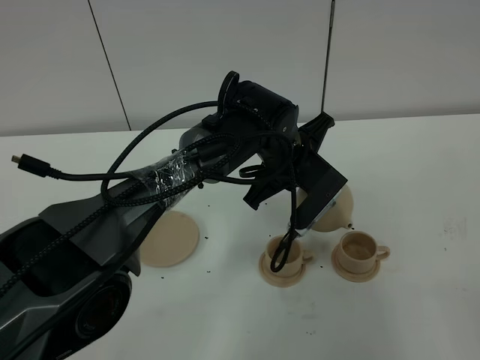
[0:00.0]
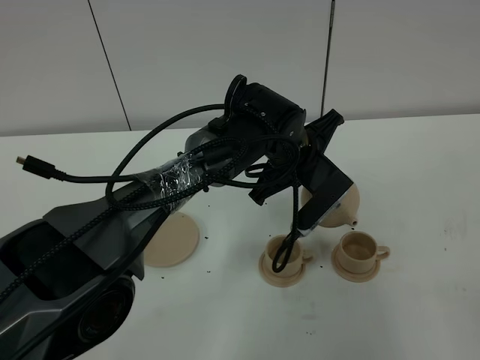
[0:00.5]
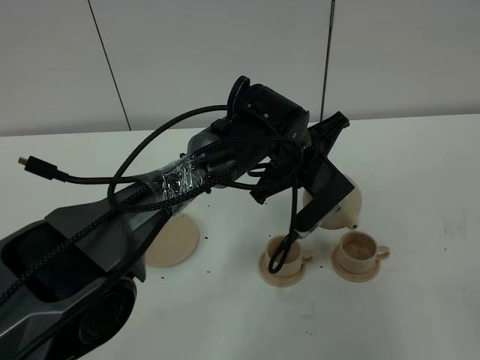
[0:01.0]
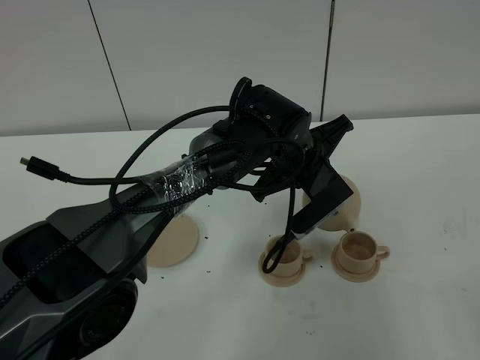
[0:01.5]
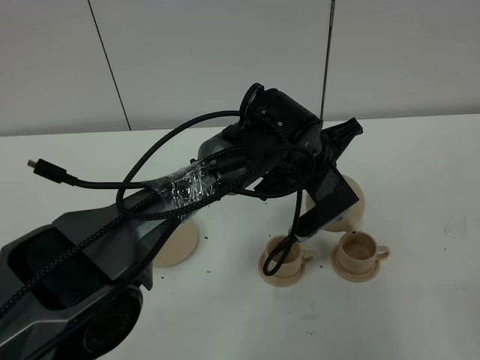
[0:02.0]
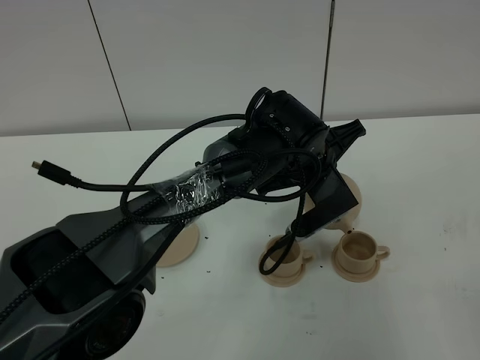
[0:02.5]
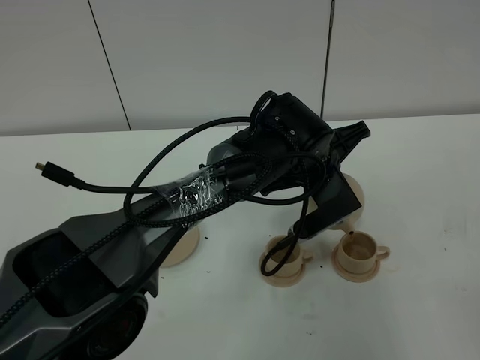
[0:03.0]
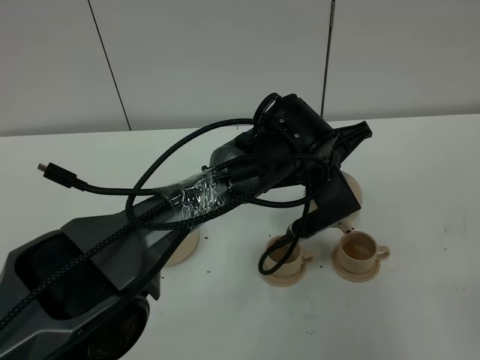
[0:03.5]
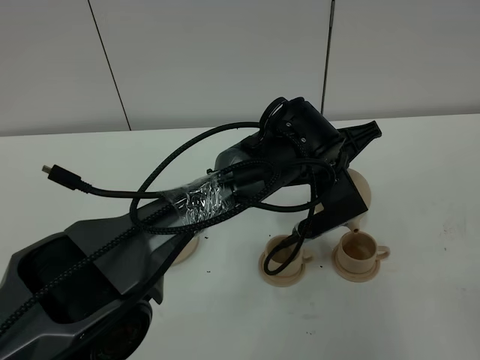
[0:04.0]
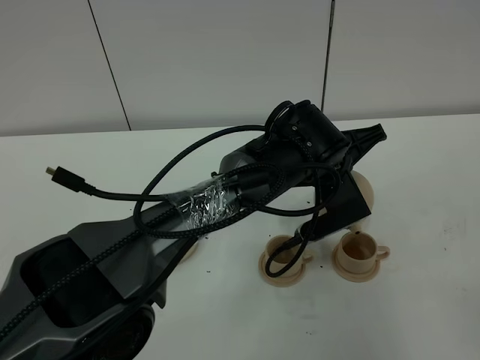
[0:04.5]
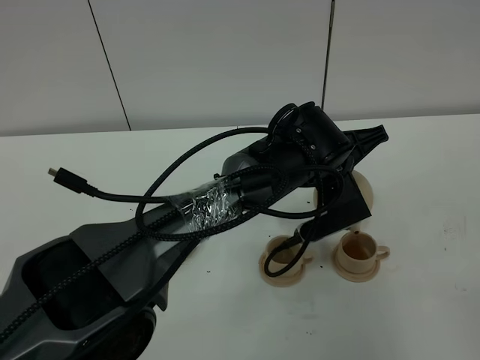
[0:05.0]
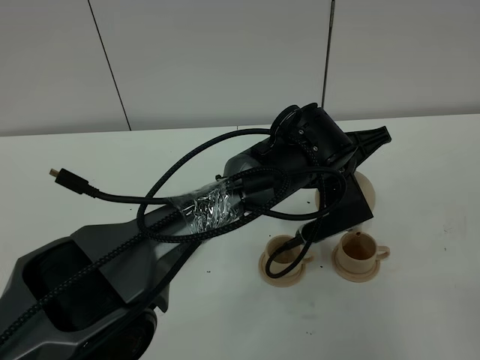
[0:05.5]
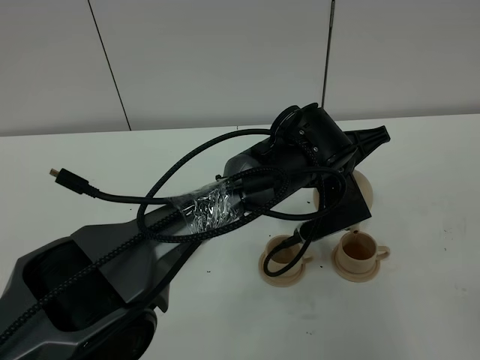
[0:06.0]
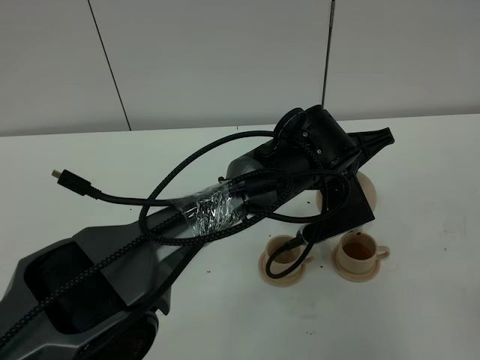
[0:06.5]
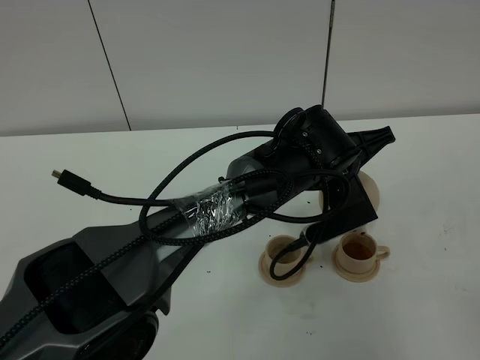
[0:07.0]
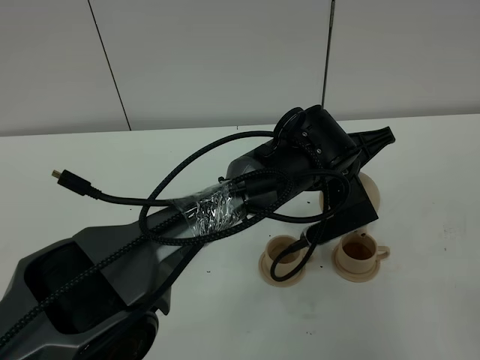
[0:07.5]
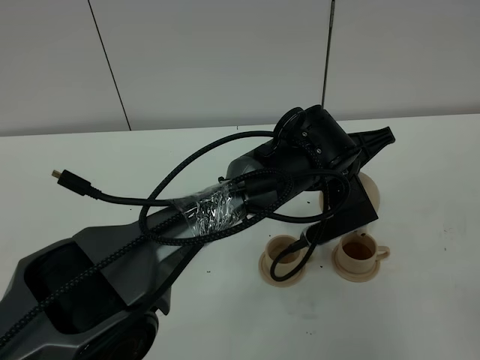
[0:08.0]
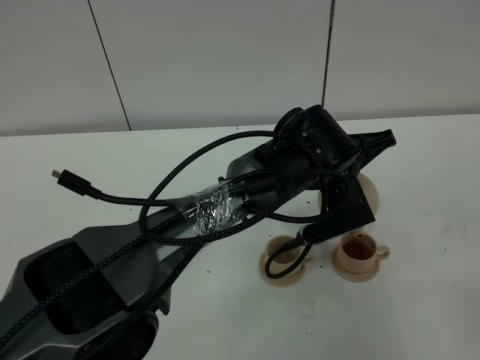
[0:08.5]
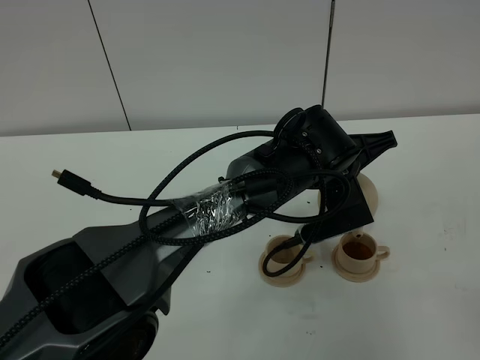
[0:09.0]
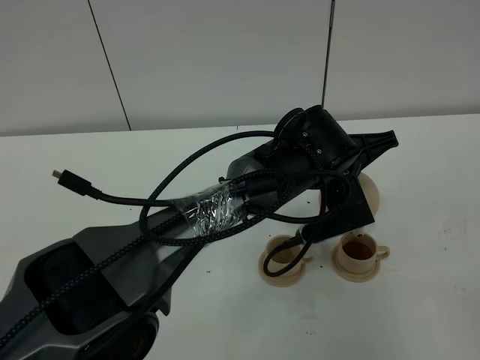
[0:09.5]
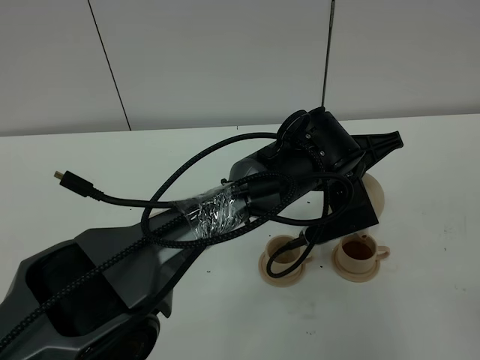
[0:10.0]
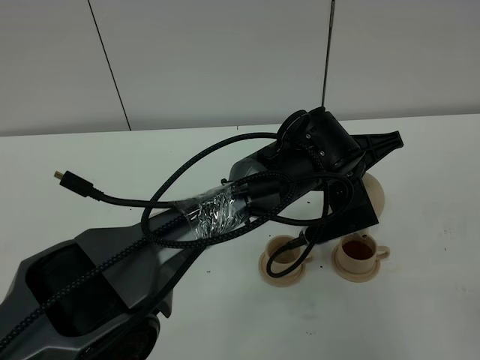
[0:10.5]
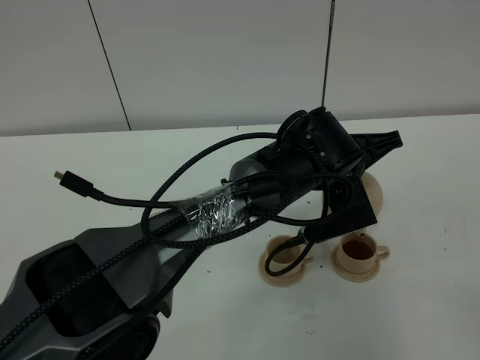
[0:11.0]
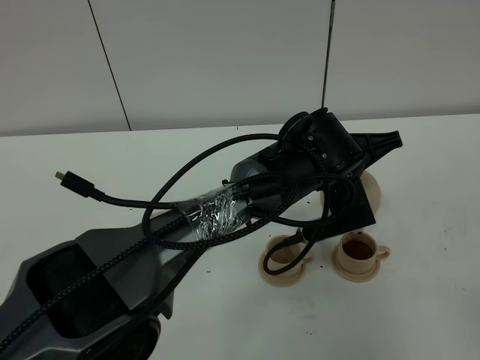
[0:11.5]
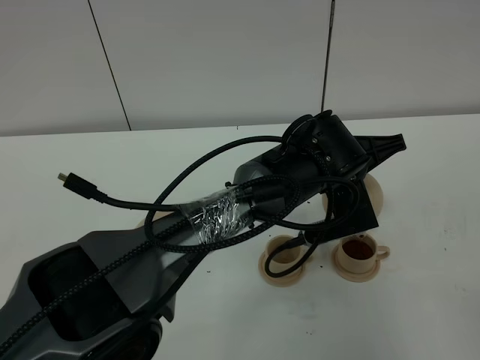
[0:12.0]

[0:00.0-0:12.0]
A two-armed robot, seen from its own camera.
Task of the whole recording: grasp the brown teapot and pour the tea into the two brown teacups one by one, put the brown teapot back in its original place.
0:00.0 to 0:02.0: There are only small adjustments of the grippers.
0:02.0 to 0:04.0: The grippers move only a little.
0:04.0 to 0:06.0: Neither gripper changes place.
0:06.0 to 0:08.0: Both grippers stay put.
0:08.0 to 0:10.0: The grippers move only a little.
0:10.0 to 0:12.0: The two grippers keep their place.

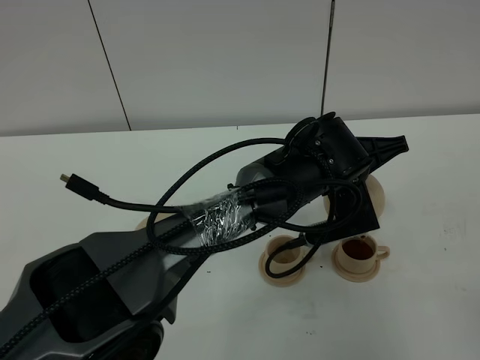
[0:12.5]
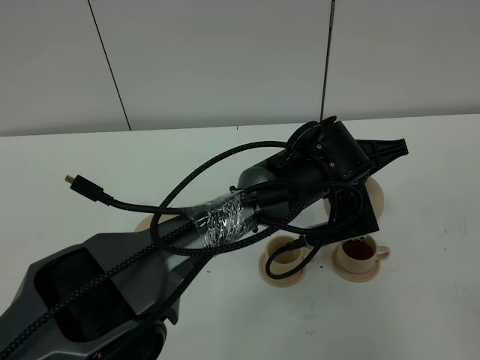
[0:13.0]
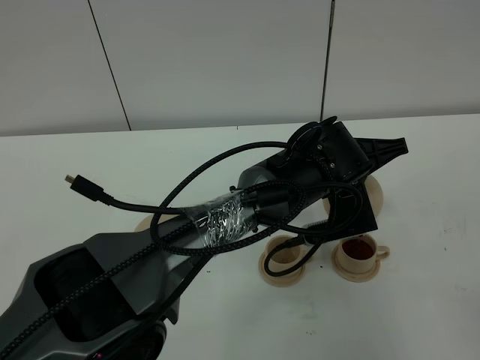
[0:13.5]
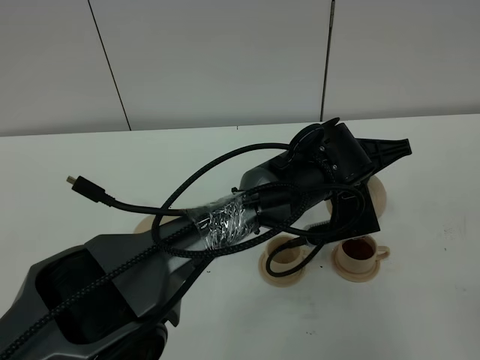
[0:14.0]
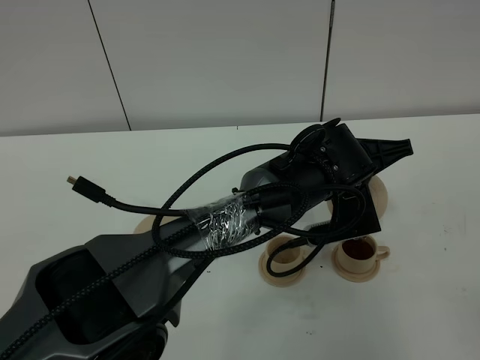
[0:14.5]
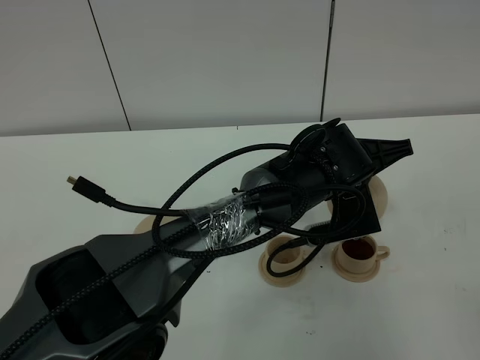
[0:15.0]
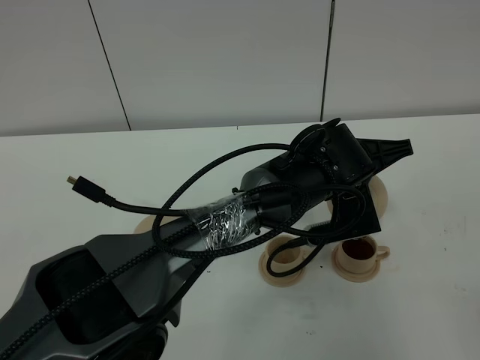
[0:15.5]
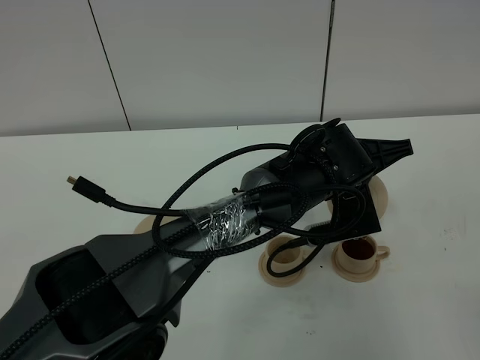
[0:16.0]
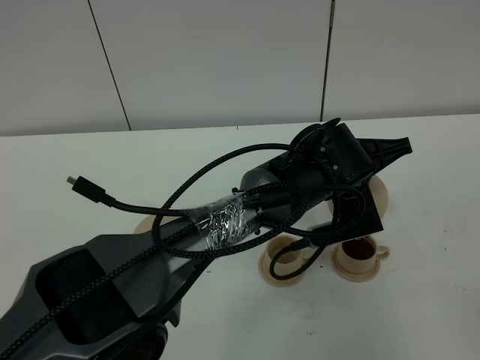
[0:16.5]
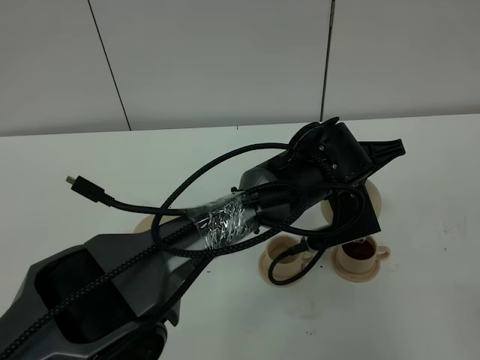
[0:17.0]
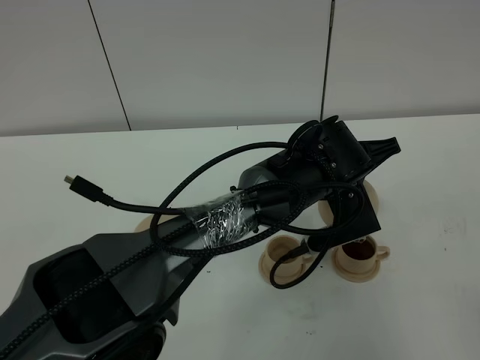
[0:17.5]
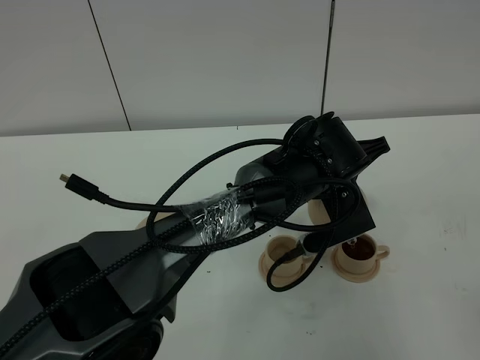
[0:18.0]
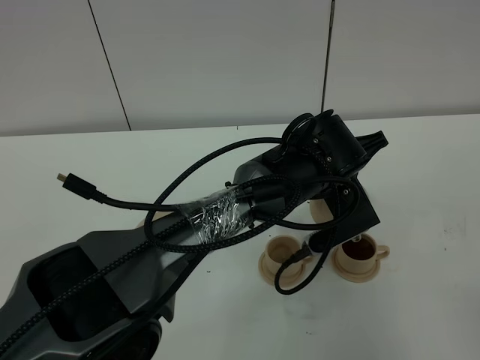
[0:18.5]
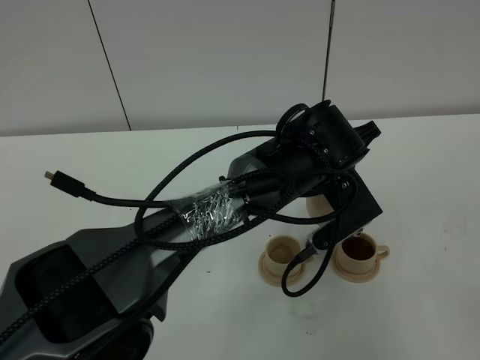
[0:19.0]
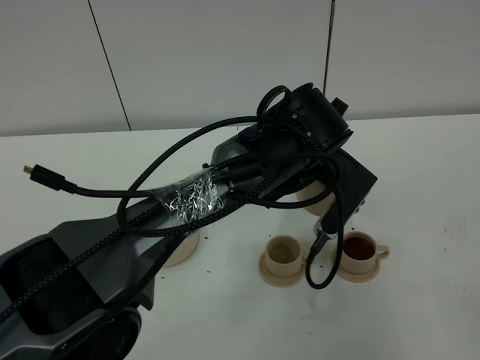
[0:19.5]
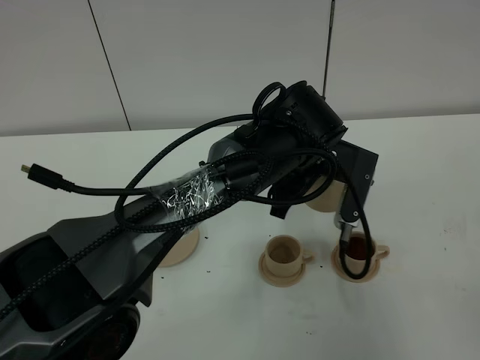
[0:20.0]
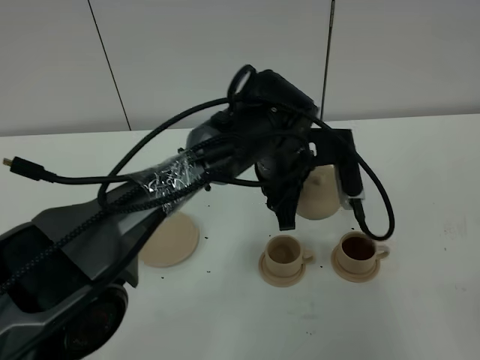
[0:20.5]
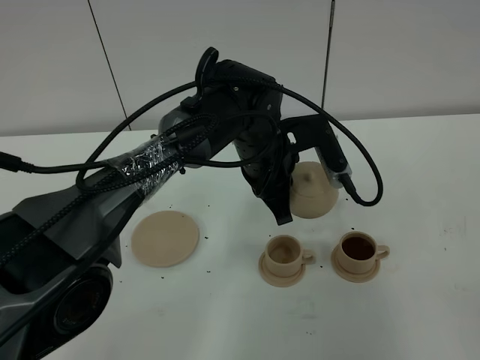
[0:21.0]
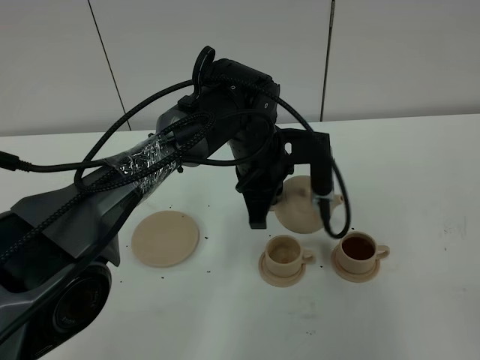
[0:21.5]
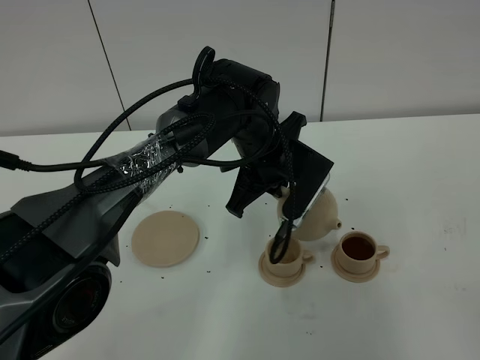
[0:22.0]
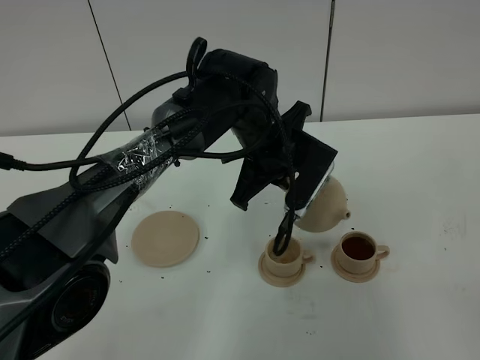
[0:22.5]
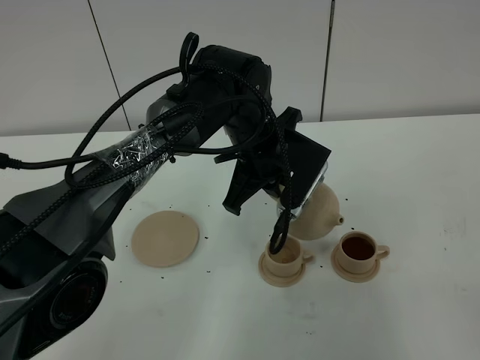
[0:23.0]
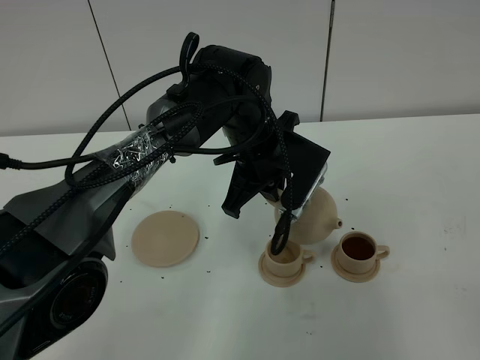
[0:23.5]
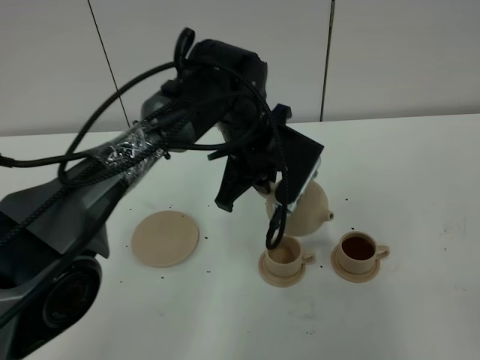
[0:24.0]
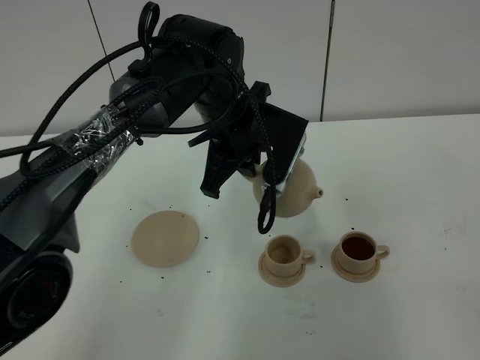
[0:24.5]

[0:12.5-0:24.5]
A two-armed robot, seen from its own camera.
Task of the whole recording: grasp the brown teapot and pour the tea into the two brown teacups one by one, put the brown teapot back in its original place.
0:12.5 to 0:16.5: The two grippers keep their place.
0:16.5 to 0:18.5: The grippers move only a little.
0:18.5 to 0:20.5: The left gripper goes some 5 cm to the left.
0:22.5 to 0:24.5: The left gripper moves about 5 cm.

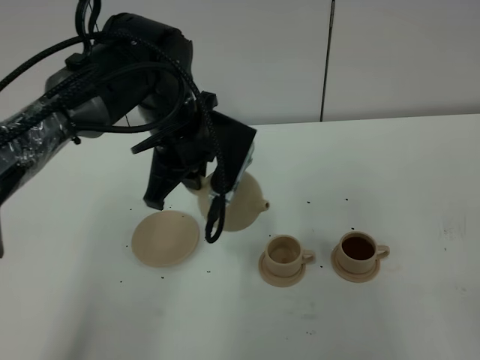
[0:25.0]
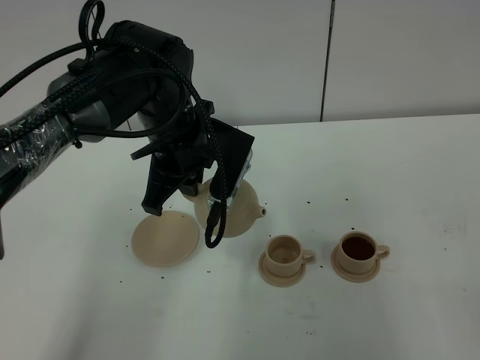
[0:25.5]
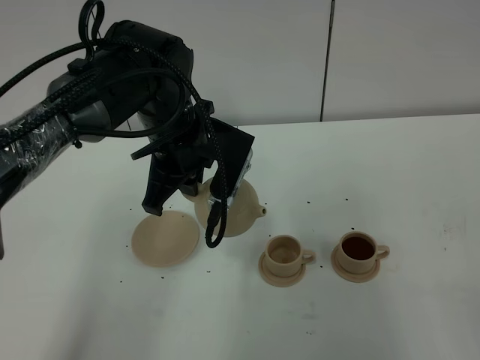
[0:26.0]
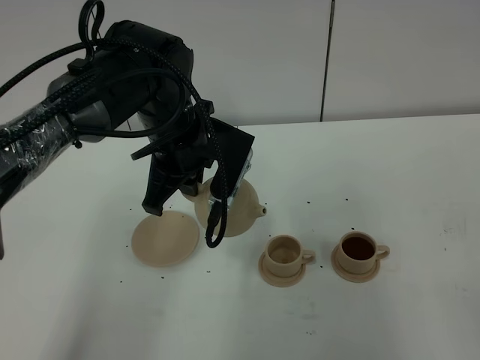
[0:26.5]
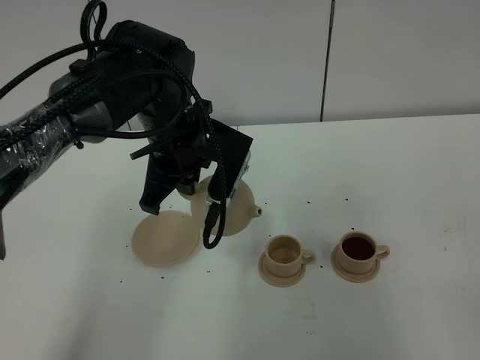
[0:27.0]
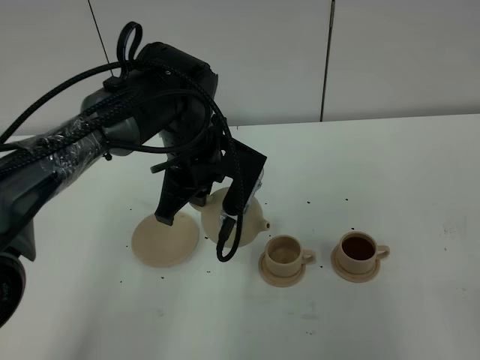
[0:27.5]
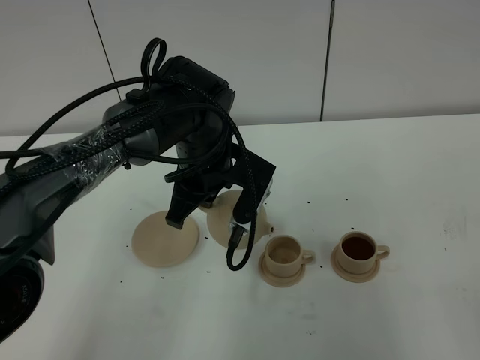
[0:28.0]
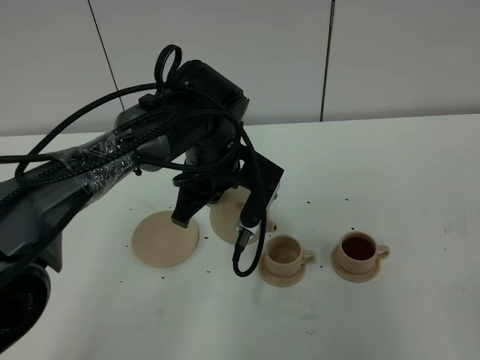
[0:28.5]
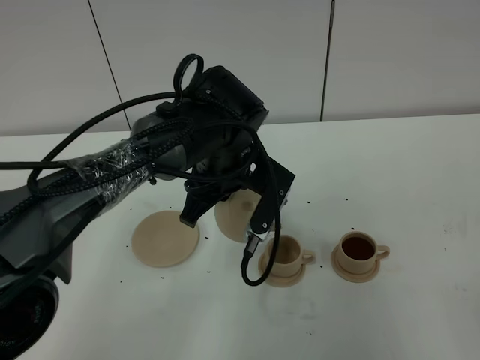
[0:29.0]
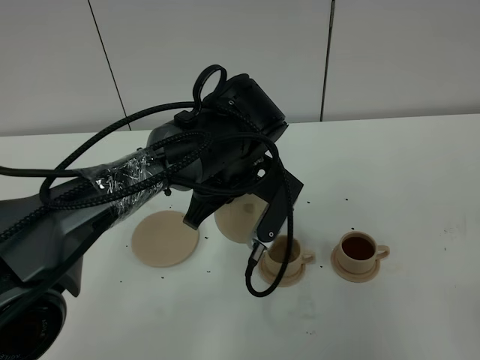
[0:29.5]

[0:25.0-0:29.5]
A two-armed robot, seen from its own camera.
Task of the whole recording: grasp the brown teapot and pour the tea into the two brown teacups one by one, put the brown teapot back in its original place.
0:25.0 to 0:27.0: Both grippers stay put.
0:27.0 to 0:29.5: The left gripper goes about 5 cm to the right.
